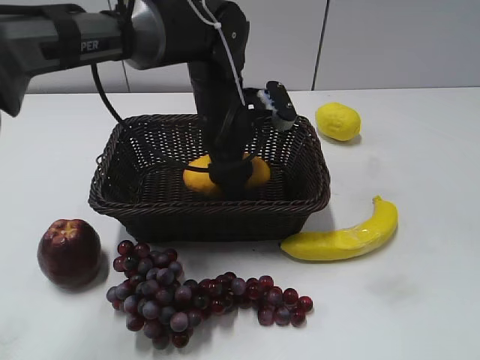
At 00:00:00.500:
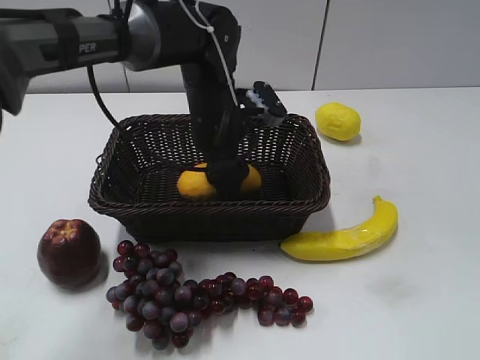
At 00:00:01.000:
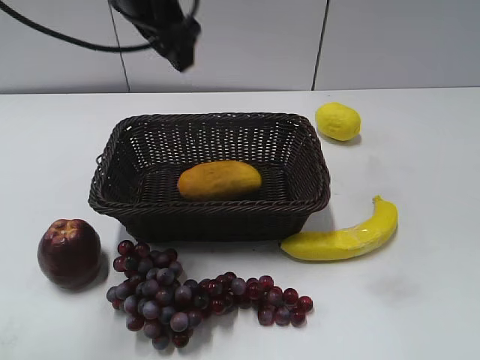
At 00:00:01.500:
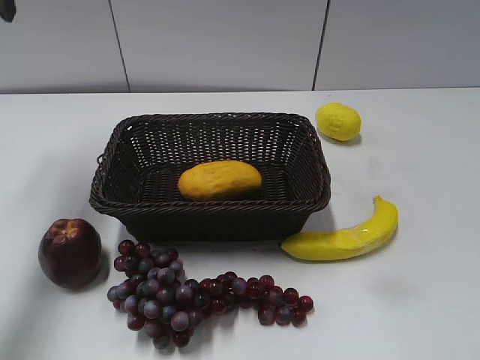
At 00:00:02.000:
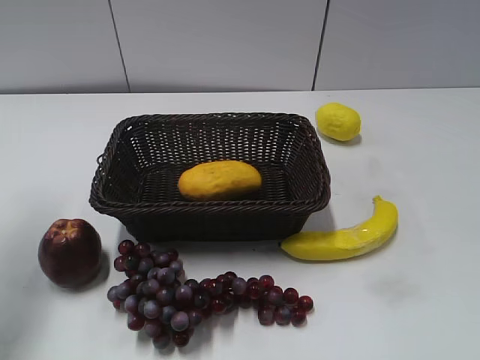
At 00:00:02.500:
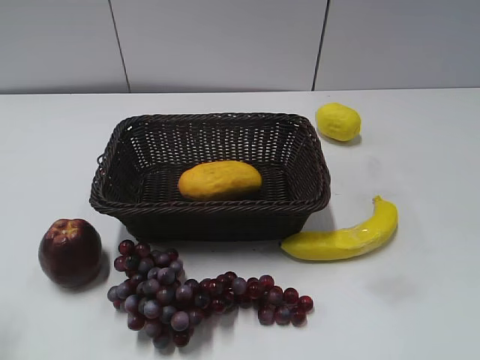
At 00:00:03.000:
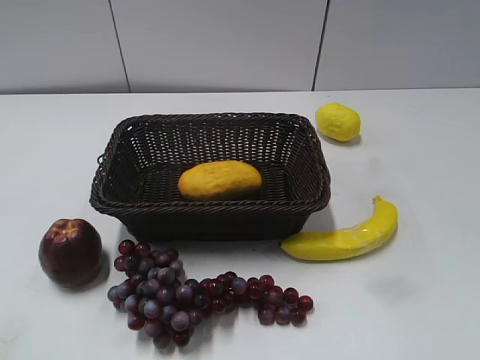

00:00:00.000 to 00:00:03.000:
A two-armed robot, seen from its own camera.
00:00:00.000 to 00:00:01.500: The left gripper moves to the left and upward, approximately 35 cm, and opens and closes again.
00:00:01.500 to 00:00:03.000: The left gripper moves backward, approximately 40 cm.
